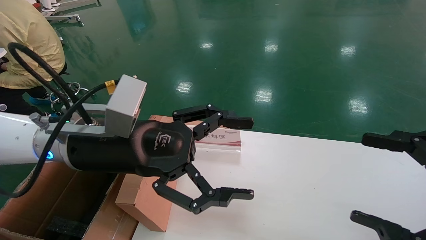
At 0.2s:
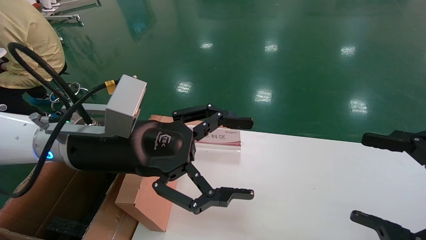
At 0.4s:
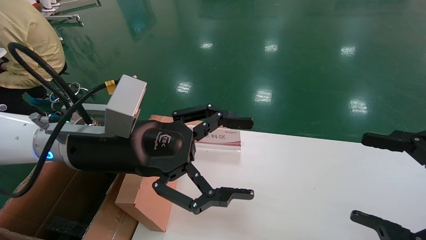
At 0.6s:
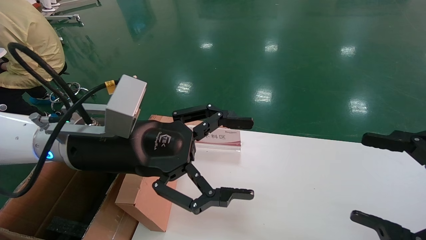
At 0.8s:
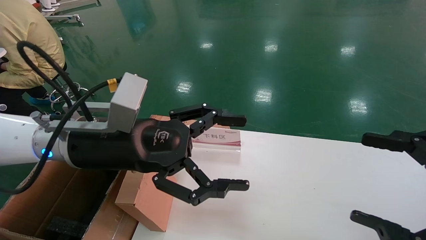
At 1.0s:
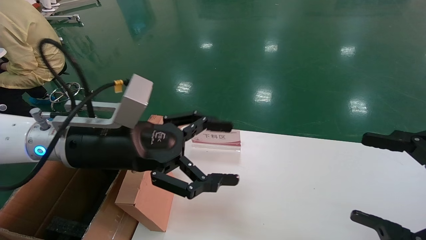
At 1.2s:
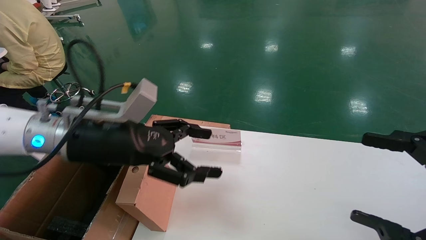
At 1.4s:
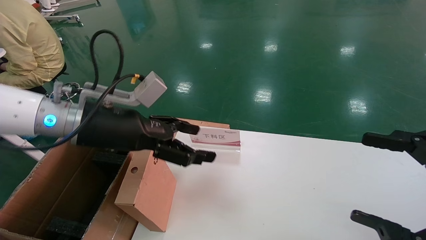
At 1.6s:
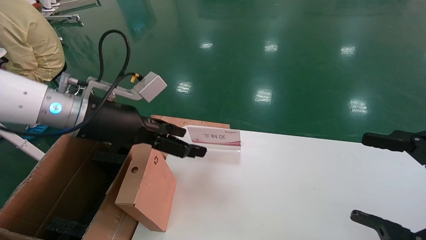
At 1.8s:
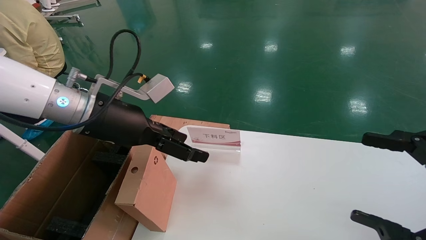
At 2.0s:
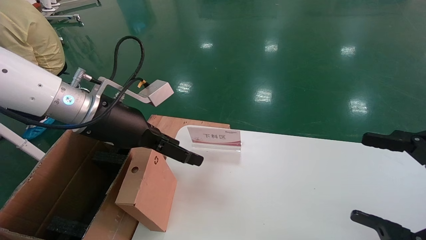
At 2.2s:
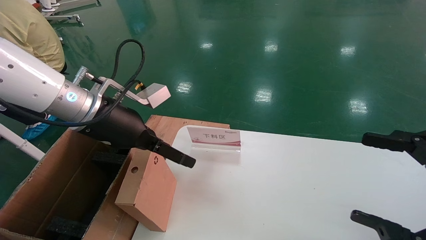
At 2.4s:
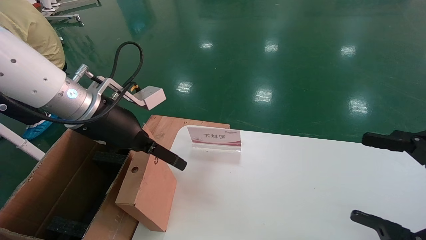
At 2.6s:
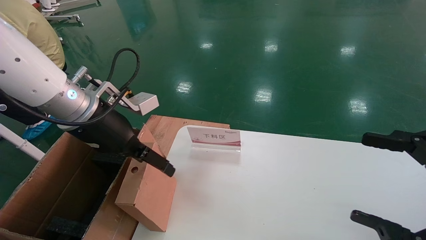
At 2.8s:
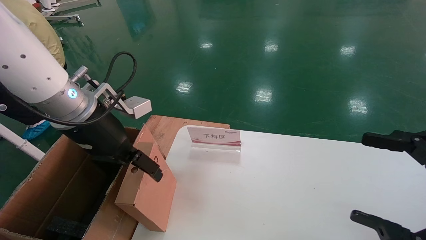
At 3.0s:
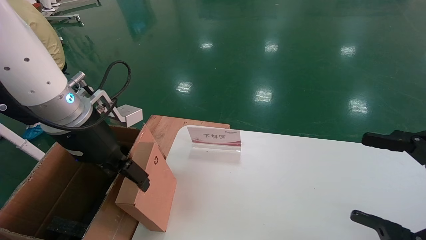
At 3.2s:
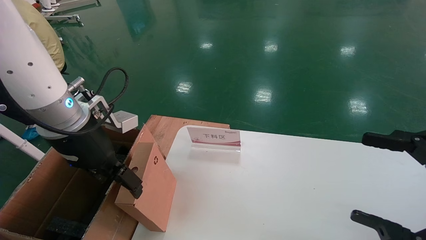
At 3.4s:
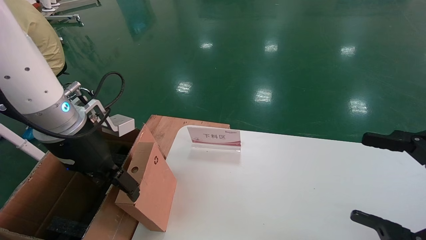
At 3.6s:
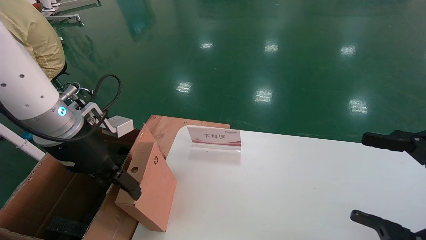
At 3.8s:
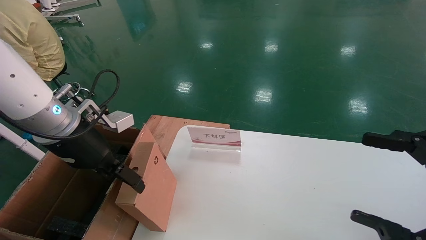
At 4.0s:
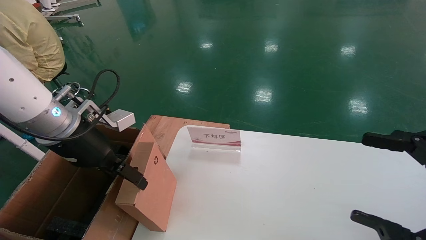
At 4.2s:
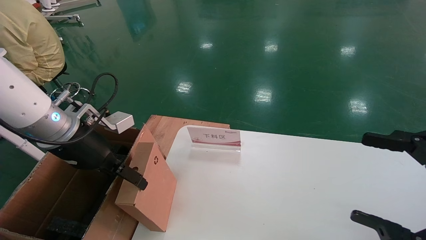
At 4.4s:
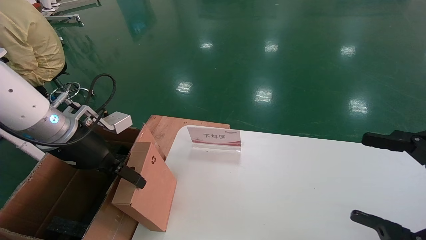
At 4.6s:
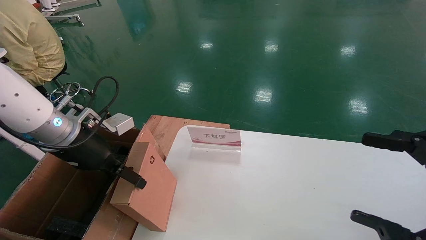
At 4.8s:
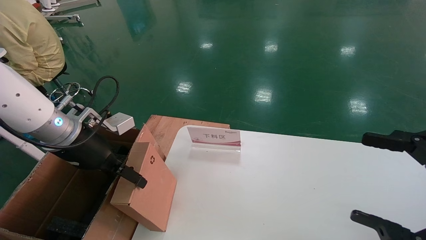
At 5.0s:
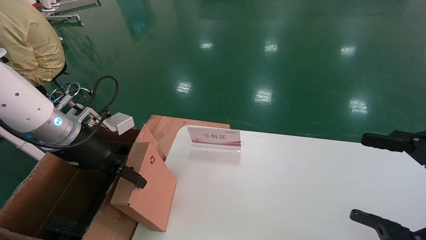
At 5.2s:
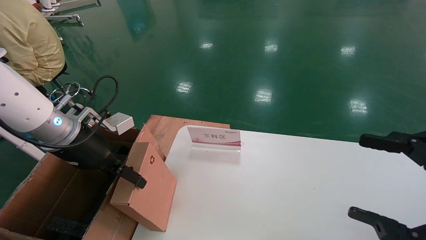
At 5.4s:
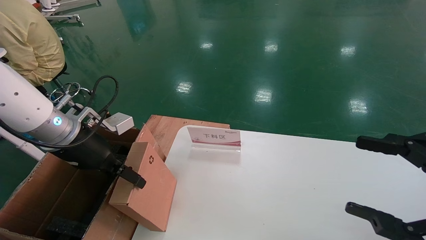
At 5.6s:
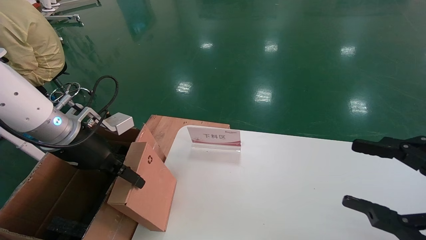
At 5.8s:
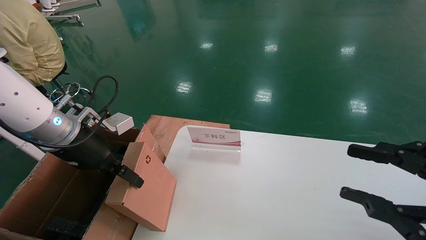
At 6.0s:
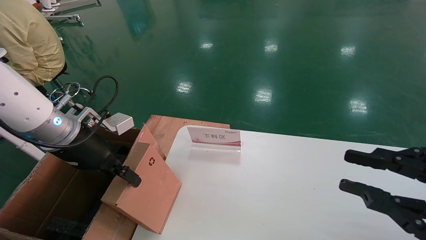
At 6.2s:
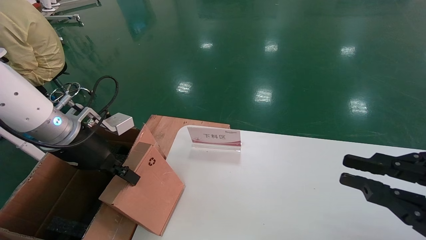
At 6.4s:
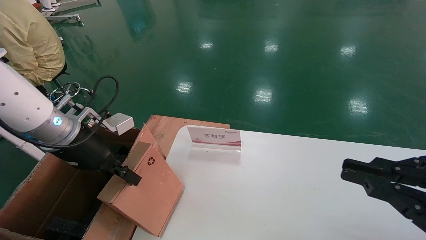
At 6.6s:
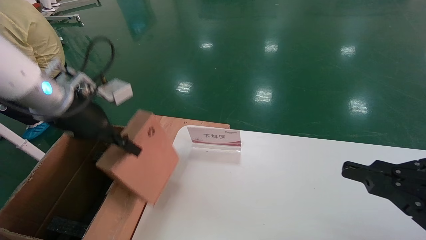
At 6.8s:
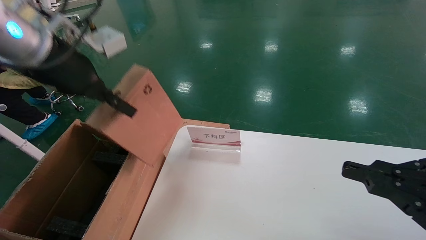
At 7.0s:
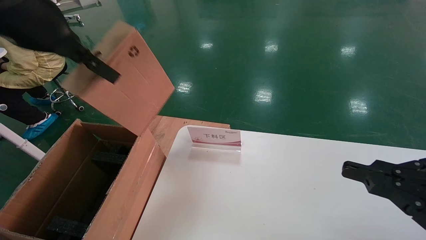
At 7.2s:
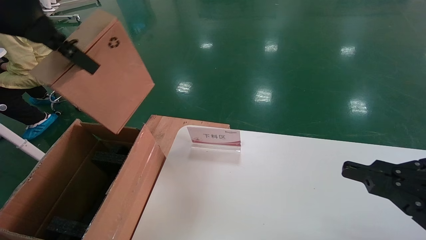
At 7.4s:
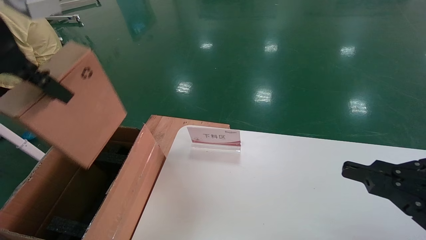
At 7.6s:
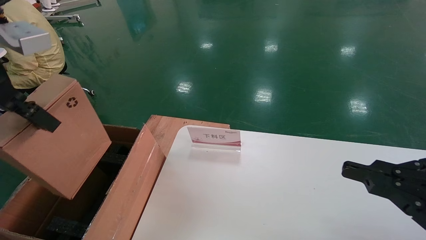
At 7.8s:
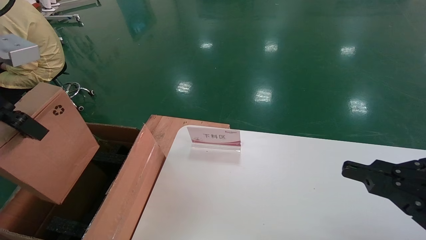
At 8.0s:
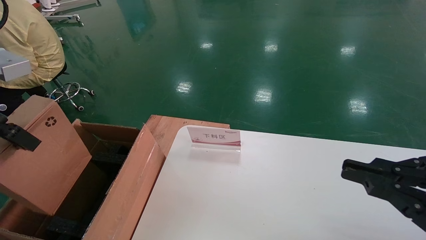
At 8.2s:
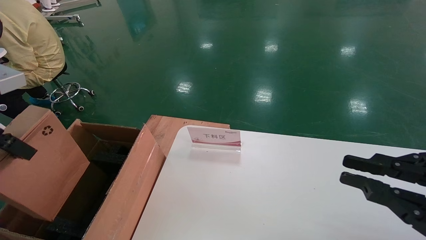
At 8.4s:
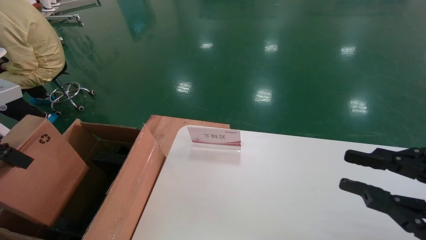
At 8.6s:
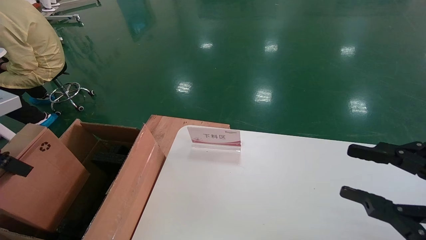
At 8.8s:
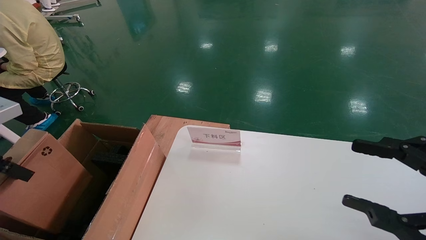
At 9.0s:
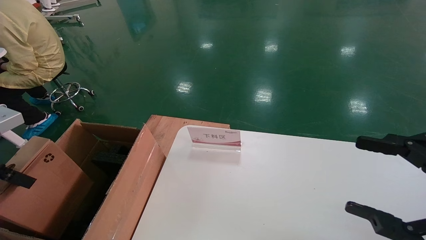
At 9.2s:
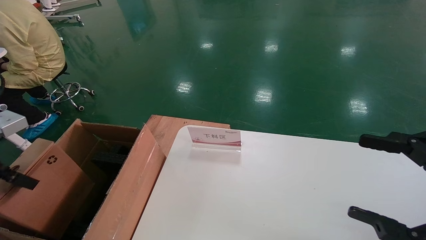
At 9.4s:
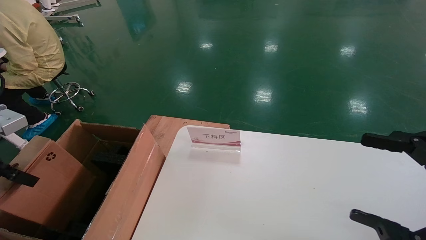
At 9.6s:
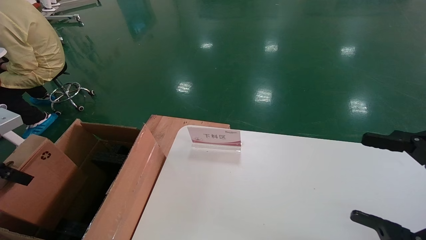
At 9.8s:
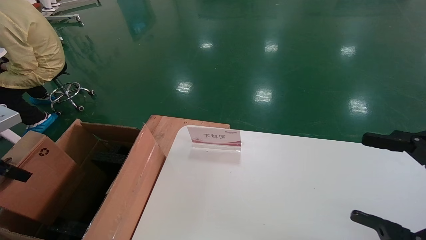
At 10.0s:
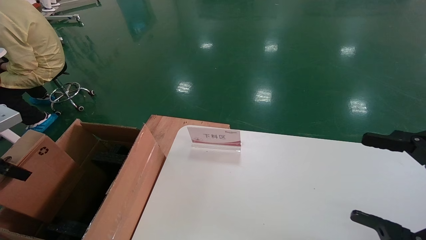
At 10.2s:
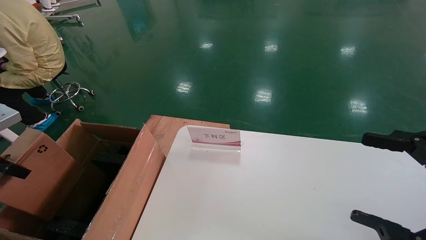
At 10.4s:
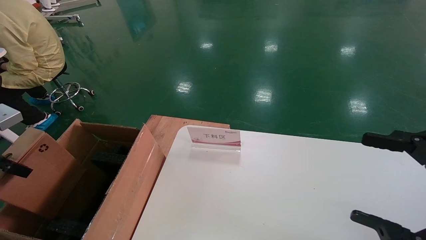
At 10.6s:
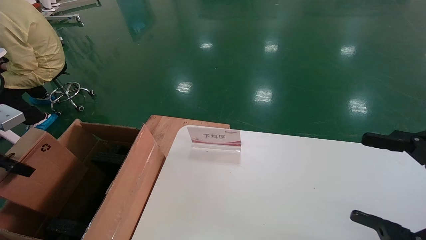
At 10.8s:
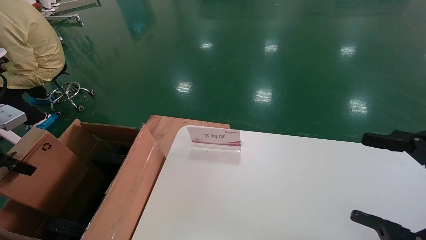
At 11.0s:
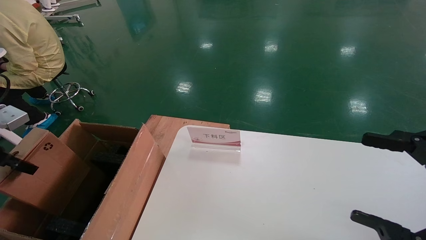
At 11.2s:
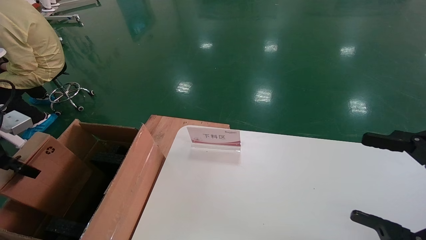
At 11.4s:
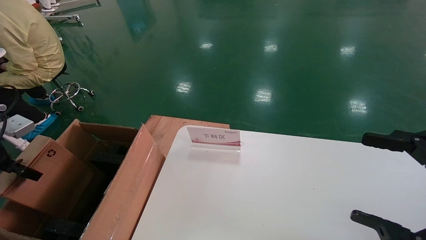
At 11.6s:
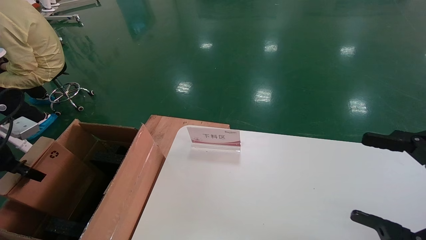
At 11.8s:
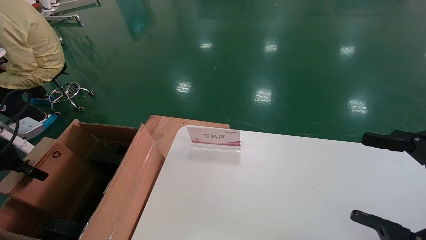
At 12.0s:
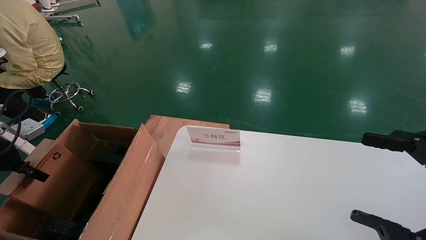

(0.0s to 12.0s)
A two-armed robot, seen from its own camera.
Task of the whole recording: pick up the small cardboard box and load it into the large cardboard box.
Step, 1.4s - 5.8s: Pick up the mouse and power cord box.
0.0s - 1.6s: The left gripper moves roughly 5 cm.
3.0s - 4.4s: The left gripper moves to the left, roughly 5 cm.
4.4s - 6.0s: The left gripper closes its fingers. Meanwhile the right gripper closes.
6.0s - 7.6s: The left gripper heads upward and backward, covering roughly 20 cm, and closes up. The right gripper closes up.
7.6s - 9.0s: The left gripper moves downward and to the left, roughly 20 cm. Meanwhile the right gripper opens up.
9.0s - 10.4s: The left gripper moves some 5 cm.
10.4s - 12.0s: The left gripper travels forward and downward by some 10 cm.

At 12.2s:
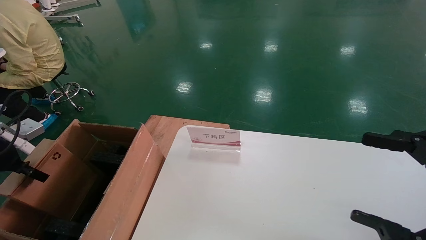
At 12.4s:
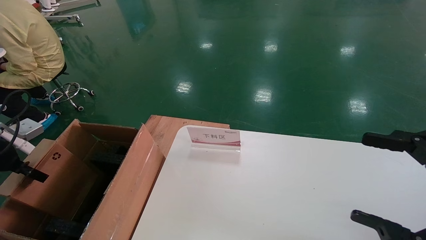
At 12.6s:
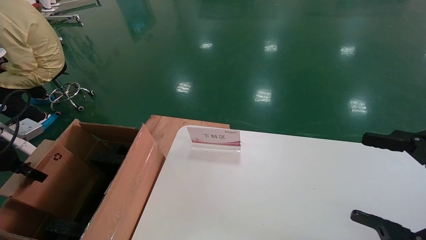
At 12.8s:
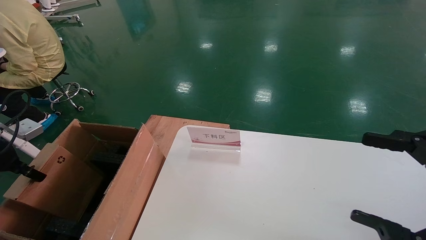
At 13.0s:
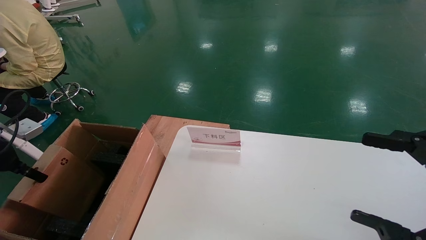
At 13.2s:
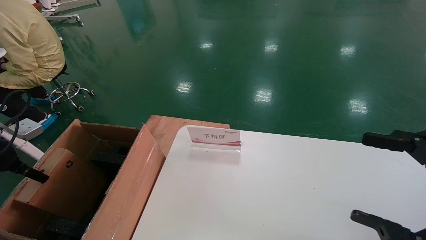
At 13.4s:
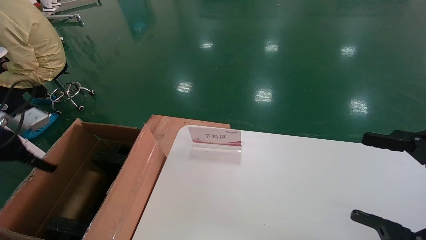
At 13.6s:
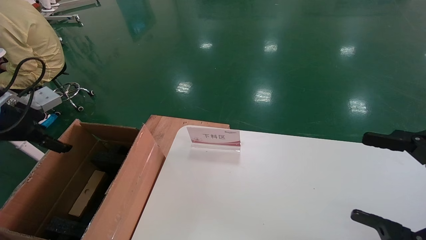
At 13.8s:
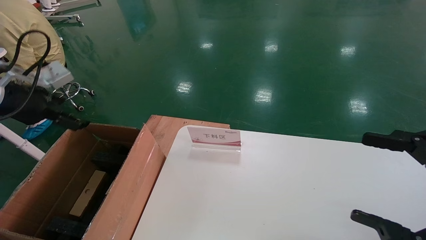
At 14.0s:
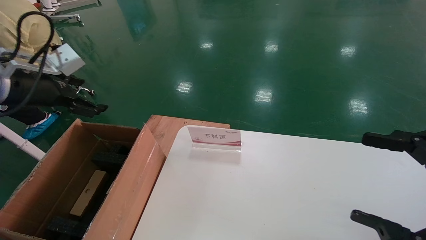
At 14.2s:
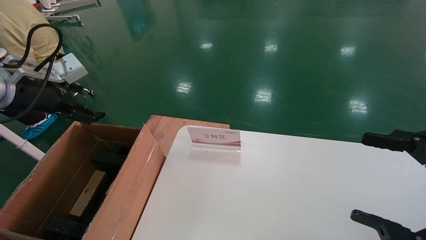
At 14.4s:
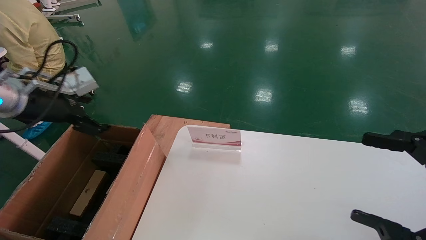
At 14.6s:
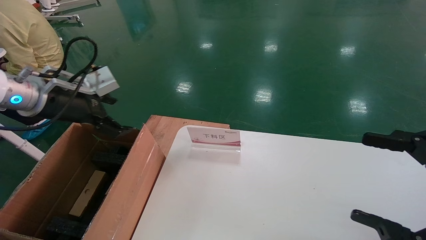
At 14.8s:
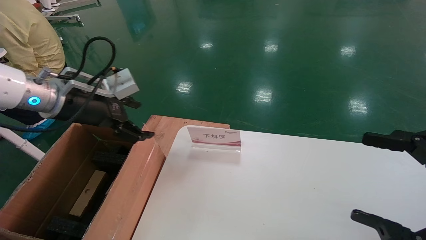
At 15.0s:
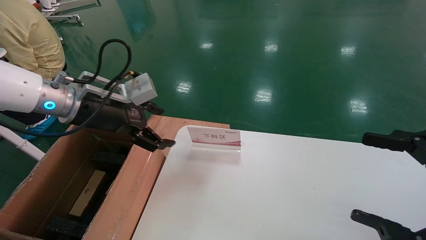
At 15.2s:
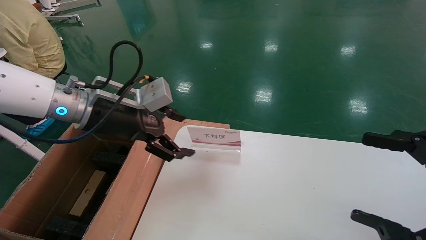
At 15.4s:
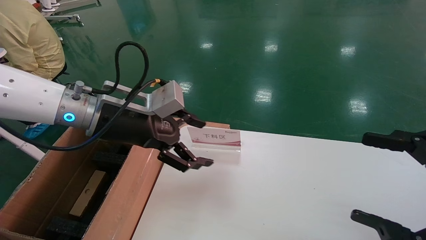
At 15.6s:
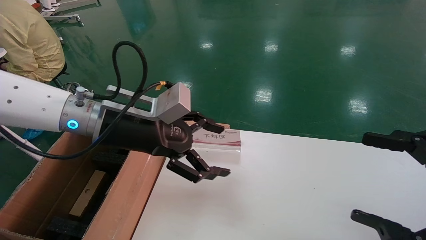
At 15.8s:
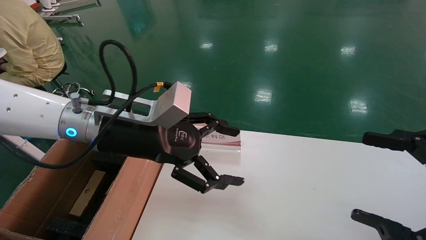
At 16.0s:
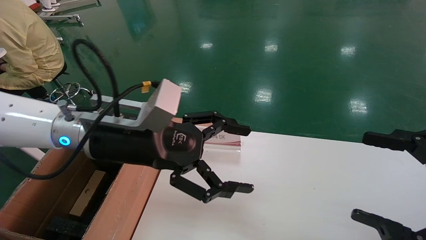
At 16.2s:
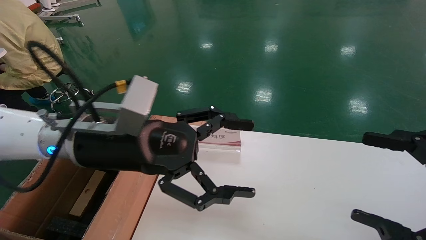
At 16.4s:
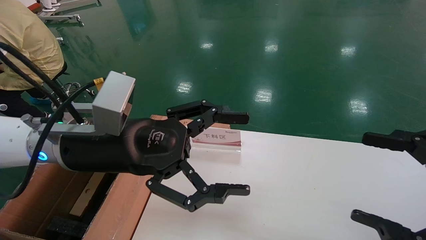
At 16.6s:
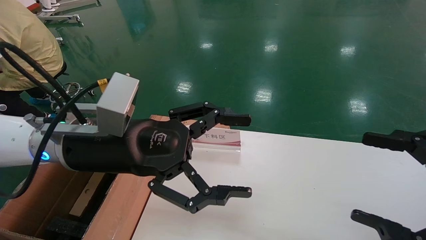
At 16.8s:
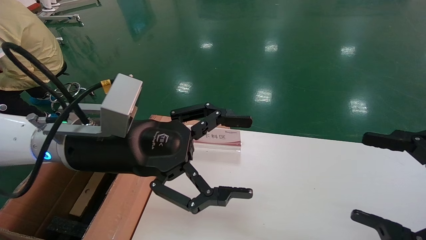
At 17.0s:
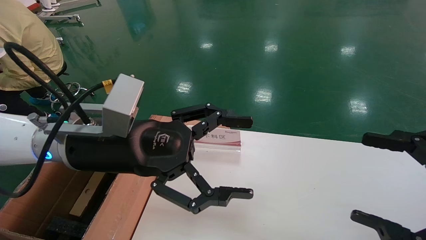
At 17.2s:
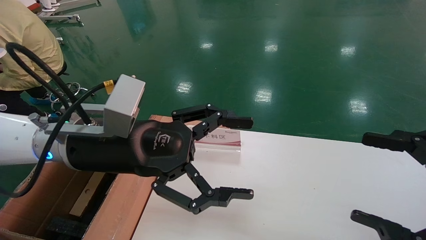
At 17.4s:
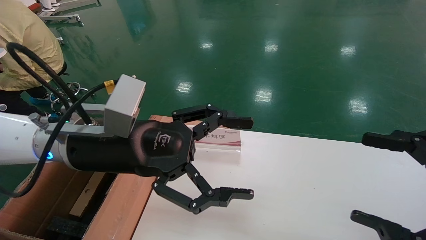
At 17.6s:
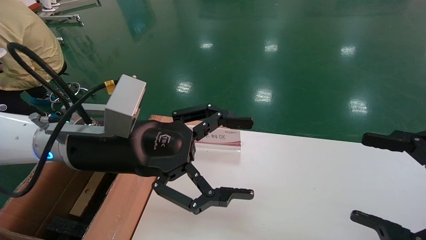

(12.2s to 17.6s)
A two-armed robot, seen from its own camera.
Task of the whole recording: pick up the small cardboard box and load it into the large cardboard box.
Step, 12.2s - 14.8s: Place the mouse and power cord box into the case.
12.2s - 13.6s: The left gripper is displaced upward and to the right by about 10 cm, and opens its fingers.
13.6s - 15.0s: The left gripper shifts roughly 20 cm to the right.
15.0s - 16.2s: The left gripper is displaced to the right and backward by roughly 10 cm.
16.2s - 17.6s: The two grippers keep their place.
